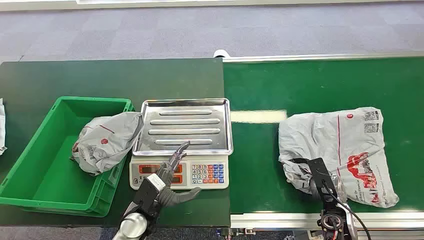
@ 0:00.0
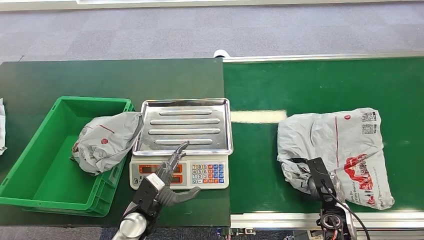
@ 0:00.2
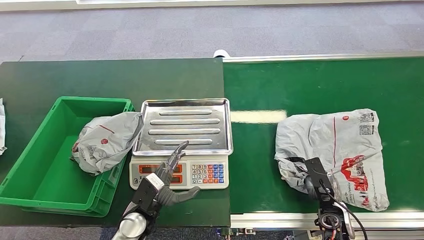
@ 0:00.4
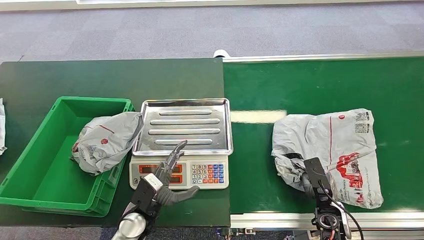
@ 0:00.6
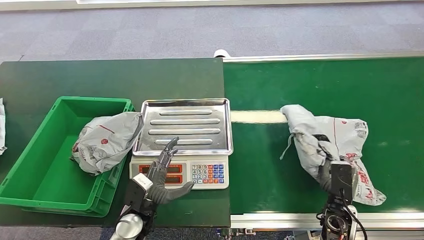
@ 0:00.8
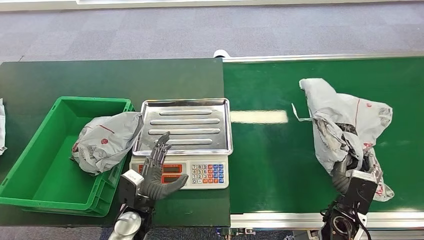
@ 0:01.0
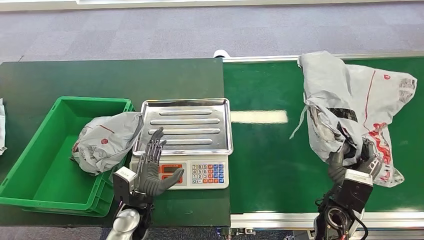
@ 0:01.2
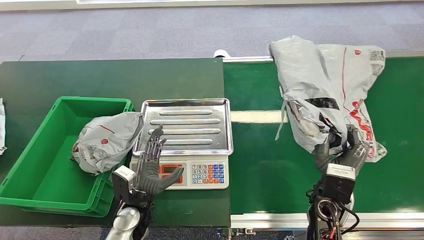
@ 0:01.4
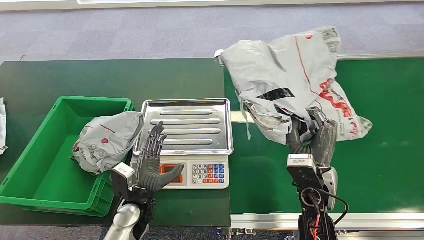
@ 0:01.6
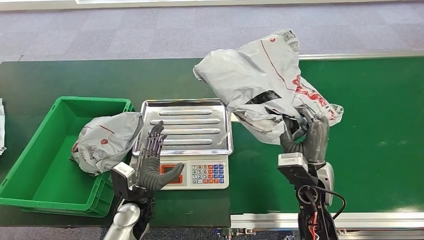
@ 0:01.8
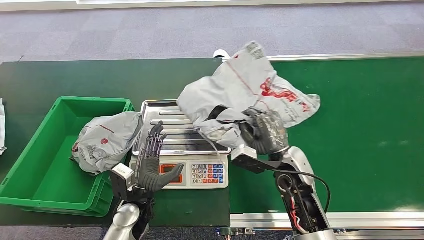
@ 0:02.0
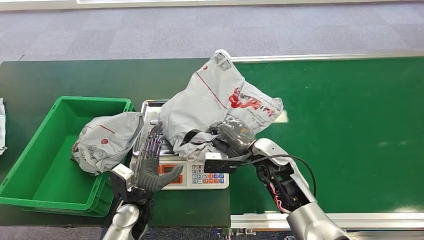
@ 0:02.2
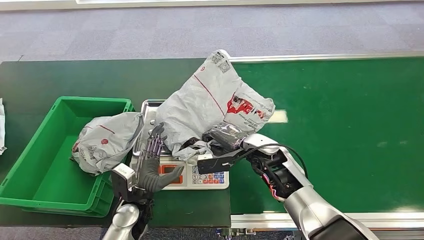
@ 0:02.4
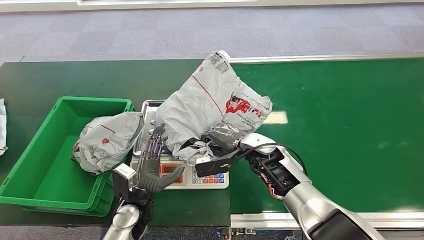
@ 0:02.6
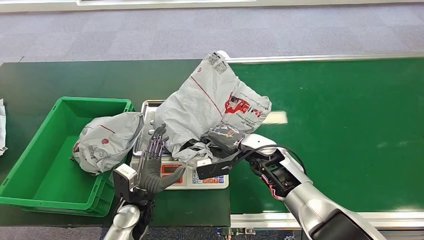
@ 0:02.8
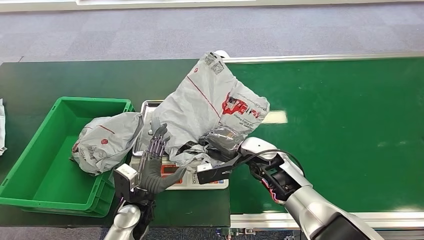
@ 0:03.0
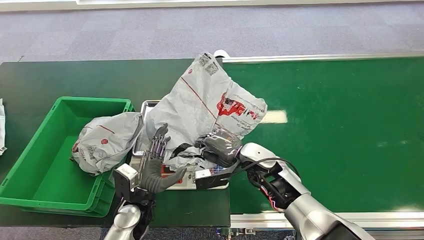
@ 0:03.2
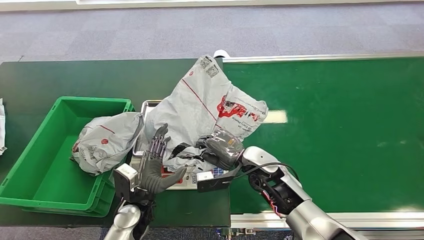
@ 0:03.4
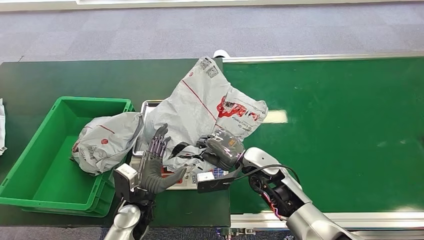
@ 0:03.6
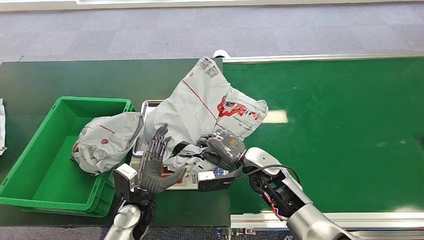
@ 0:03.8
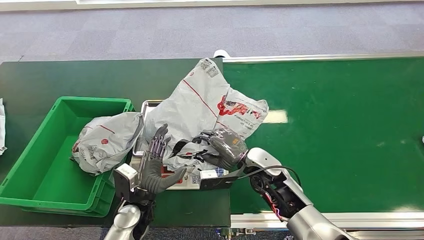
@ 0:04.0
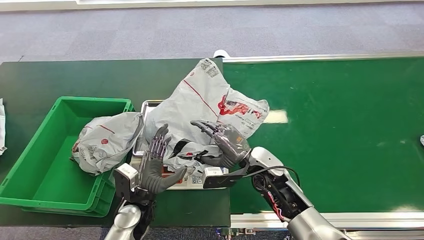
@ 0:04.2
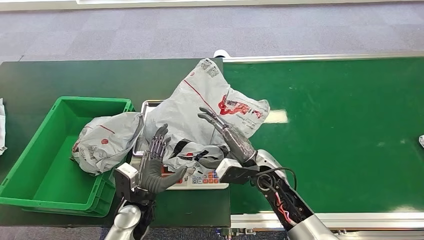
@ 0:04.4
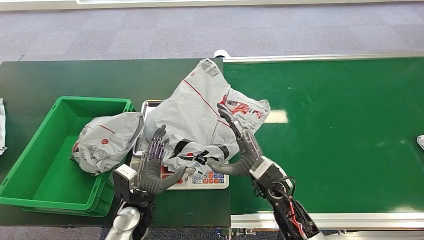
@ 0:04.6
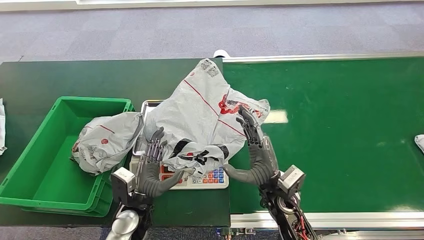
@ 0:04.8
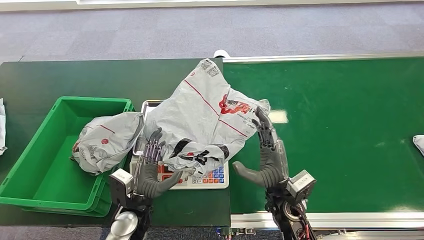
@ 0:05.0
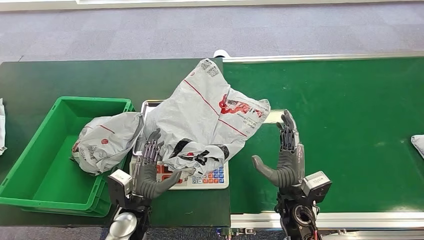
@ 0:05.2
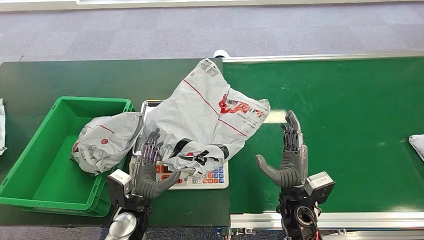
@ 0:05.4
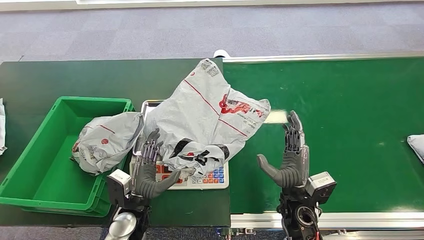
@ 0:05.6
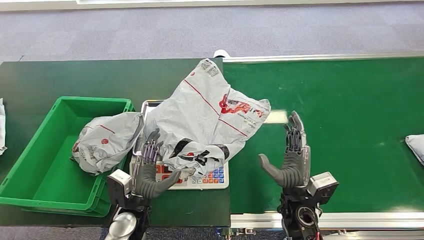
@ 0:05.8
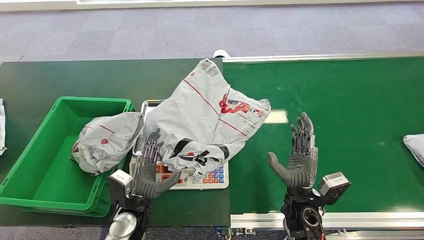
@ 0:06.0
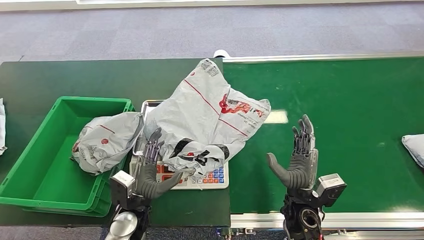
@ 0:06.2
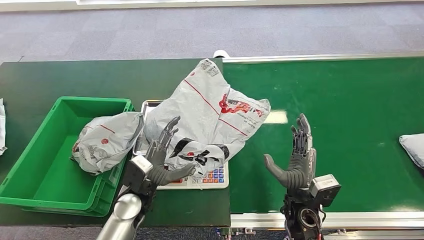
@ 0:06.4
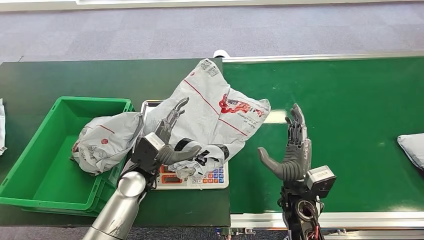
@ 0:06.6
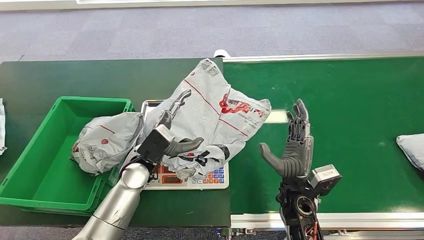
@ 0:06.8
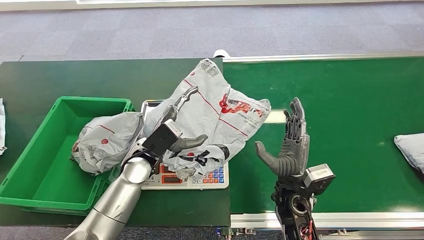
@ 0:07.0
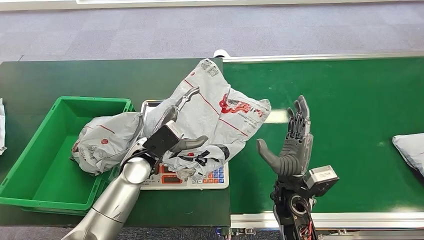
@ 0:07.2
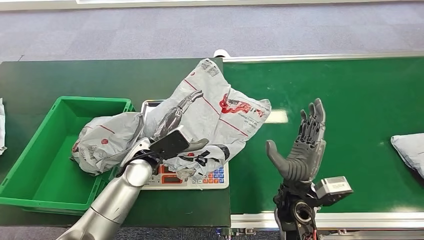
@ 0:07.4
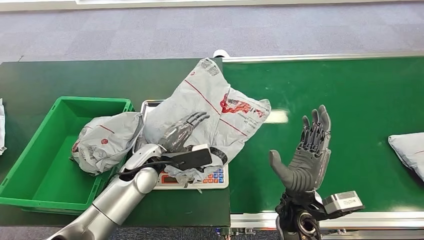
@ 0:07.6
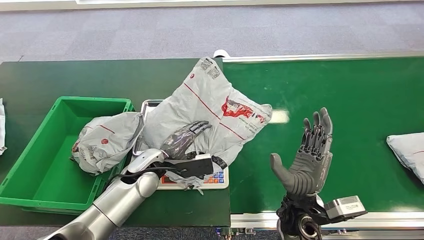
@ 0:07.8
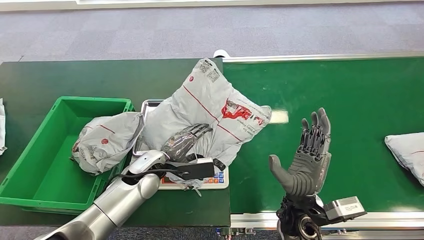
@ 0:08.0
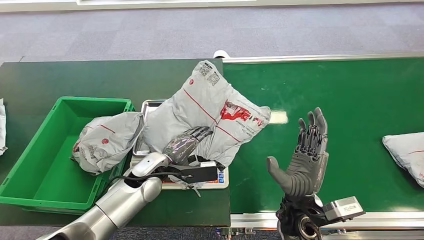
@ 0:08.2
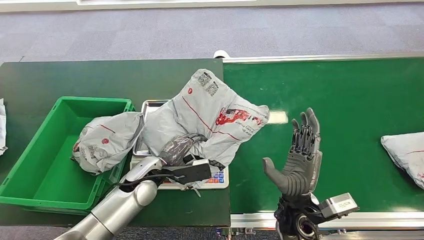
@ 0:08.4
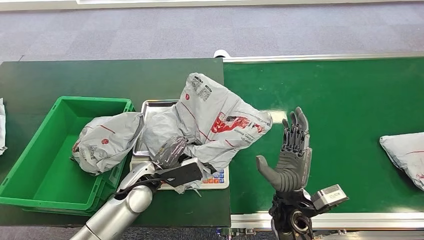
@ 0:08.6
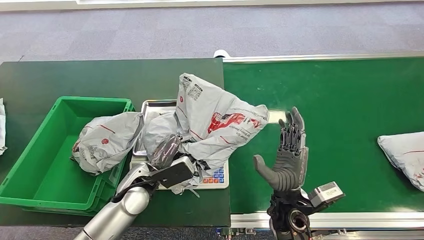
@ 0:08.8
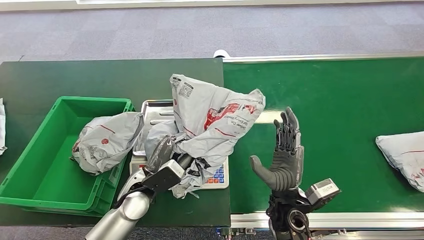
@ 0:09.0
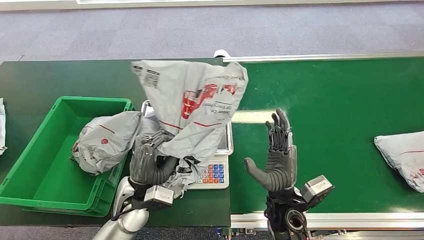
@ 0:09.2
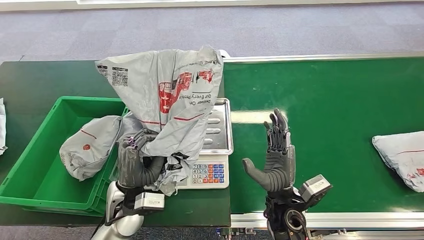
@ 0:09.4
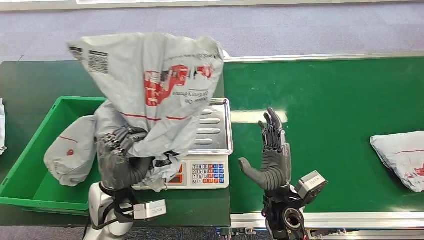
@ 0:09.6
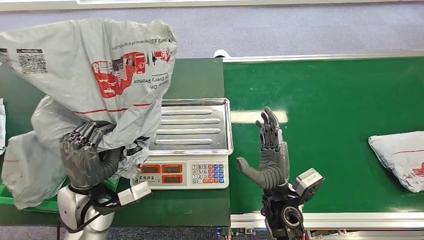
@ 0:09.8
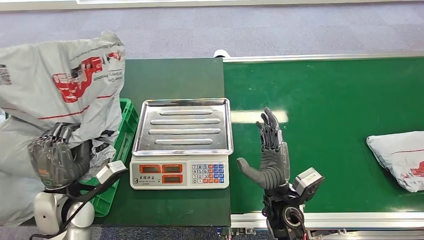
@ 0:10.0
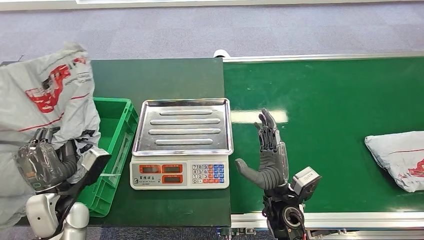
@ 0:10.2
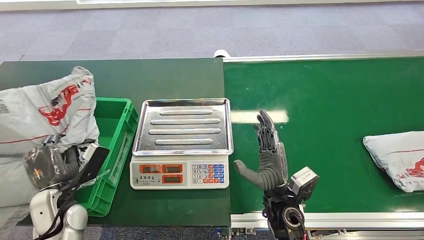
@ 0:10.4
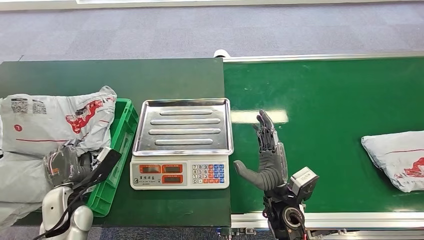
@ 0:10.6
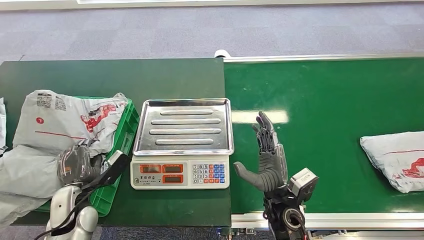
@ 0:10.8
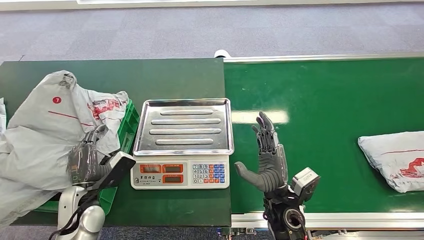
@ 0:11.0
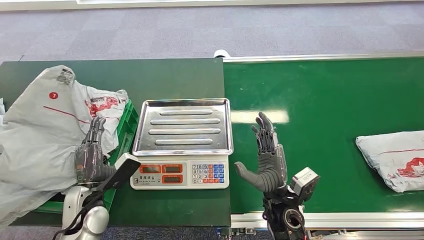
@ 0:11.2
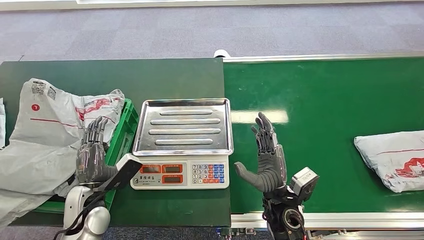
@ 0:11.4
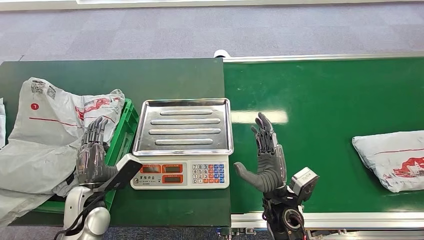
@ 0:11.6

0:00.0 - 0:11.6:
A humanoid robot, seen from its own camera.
Step, 0:00.0 - 0:01.2: Pick up the package from the conveyor belt.
Step, 0:01.6 - 0:04.0: Place the package onto the inbound machine.
Step, 0:08.0 - 0:09.8: Pick up the package from the inbound machine.
Step, 0:10.4 - 0:11.6: Place the package into the parcel locker.
0:02.8 - 0:04.4: The right hand shifts about 5 cm backward.
0:04.4 - 0:05.8: The right hand travels backward and to the right by about 10 cm.
0:05.8 - 0:07.2: The left hand goes approximately 15 cm forward and upward.
0:07.2 - 0:08.8: The left hand is displaced downward by some 5 cm.
0:10.2 - 0:11.6: The left hand ends up some 5 cm from where it was.
